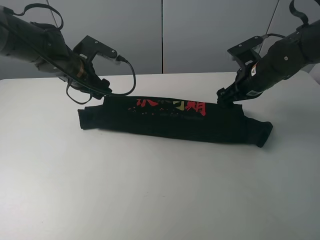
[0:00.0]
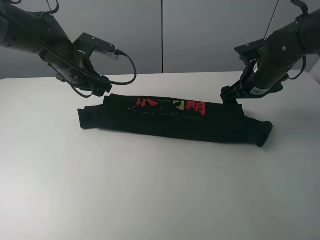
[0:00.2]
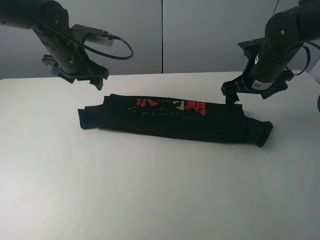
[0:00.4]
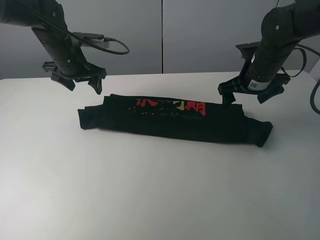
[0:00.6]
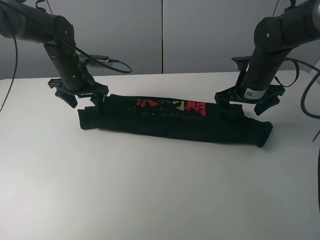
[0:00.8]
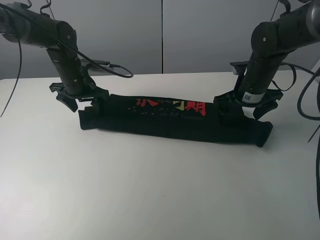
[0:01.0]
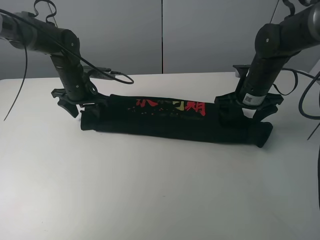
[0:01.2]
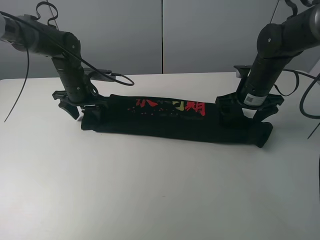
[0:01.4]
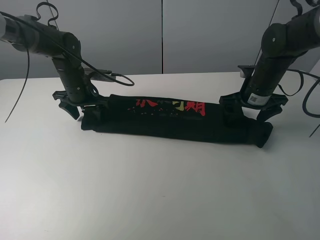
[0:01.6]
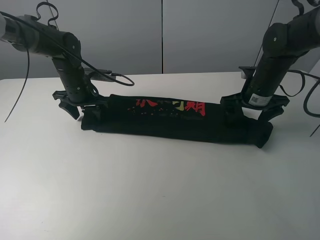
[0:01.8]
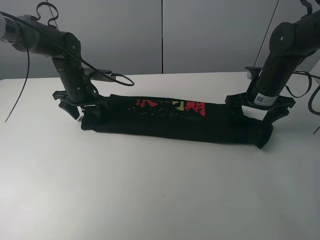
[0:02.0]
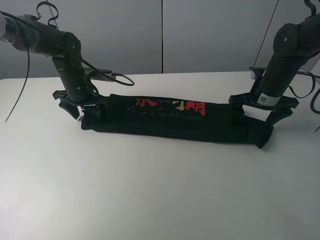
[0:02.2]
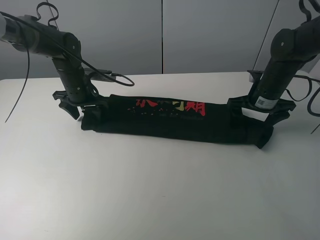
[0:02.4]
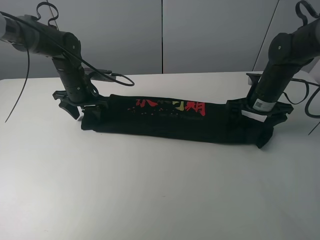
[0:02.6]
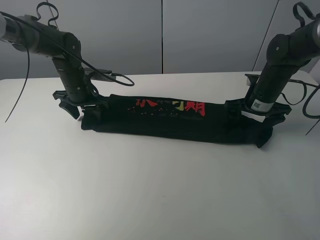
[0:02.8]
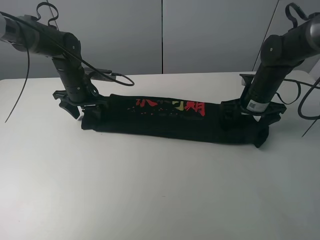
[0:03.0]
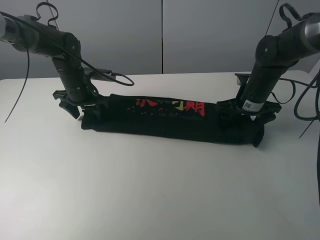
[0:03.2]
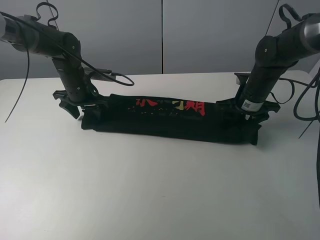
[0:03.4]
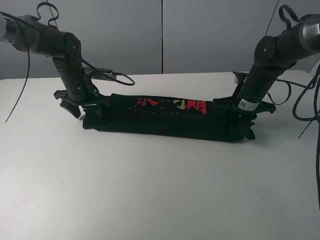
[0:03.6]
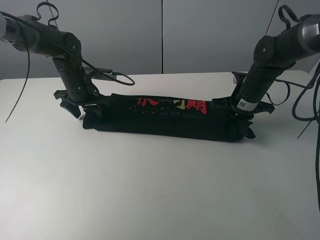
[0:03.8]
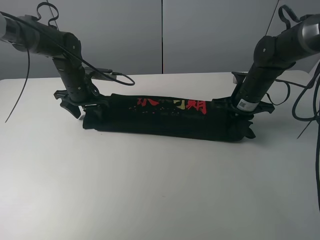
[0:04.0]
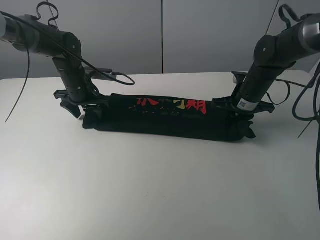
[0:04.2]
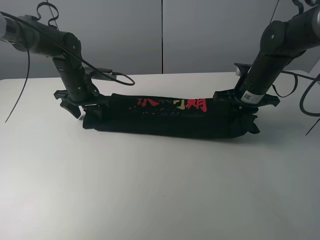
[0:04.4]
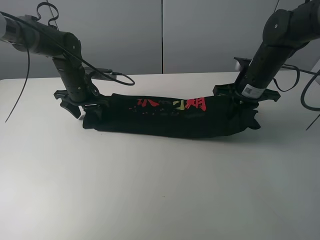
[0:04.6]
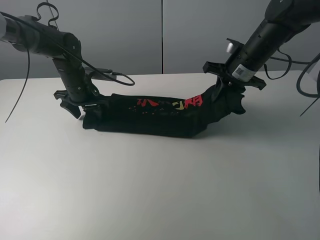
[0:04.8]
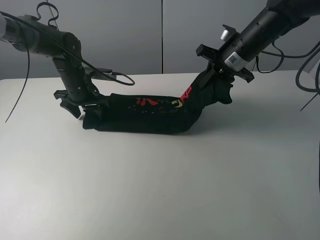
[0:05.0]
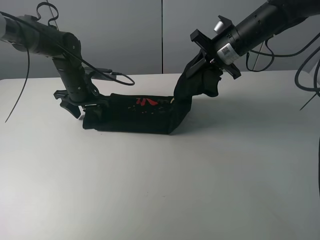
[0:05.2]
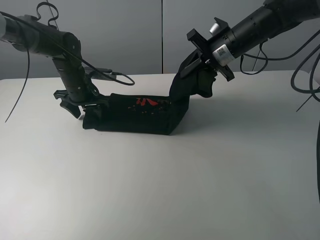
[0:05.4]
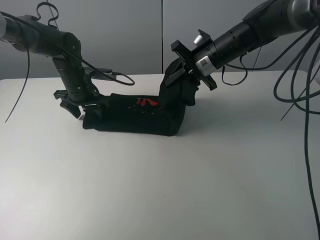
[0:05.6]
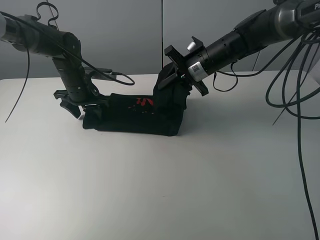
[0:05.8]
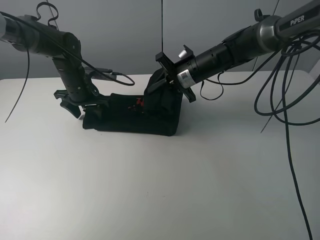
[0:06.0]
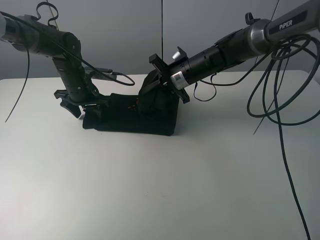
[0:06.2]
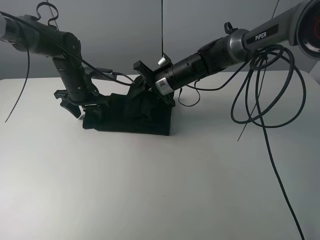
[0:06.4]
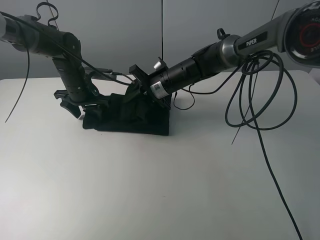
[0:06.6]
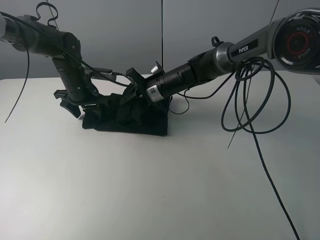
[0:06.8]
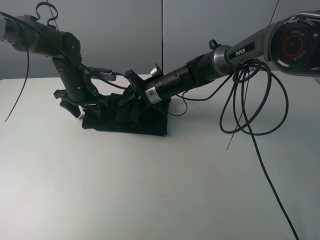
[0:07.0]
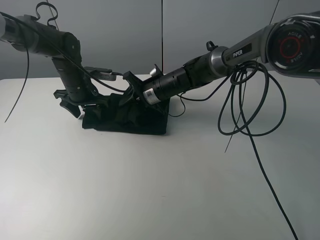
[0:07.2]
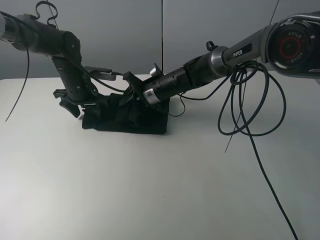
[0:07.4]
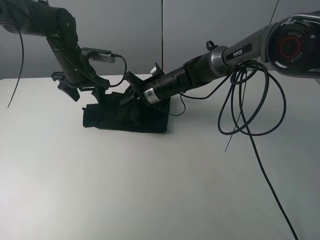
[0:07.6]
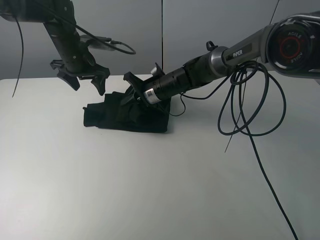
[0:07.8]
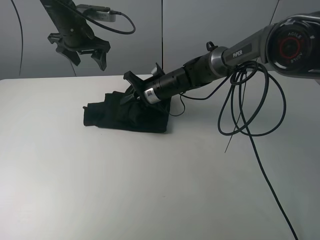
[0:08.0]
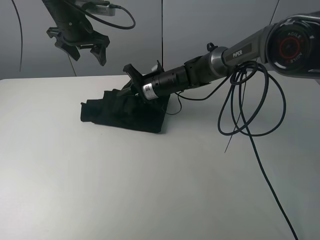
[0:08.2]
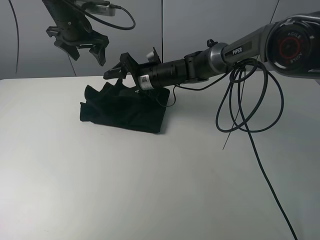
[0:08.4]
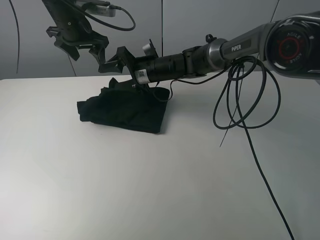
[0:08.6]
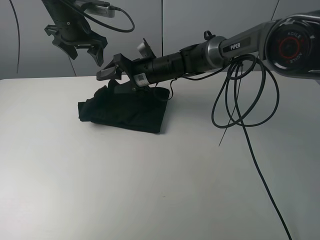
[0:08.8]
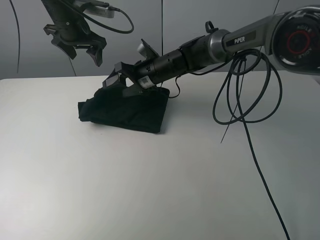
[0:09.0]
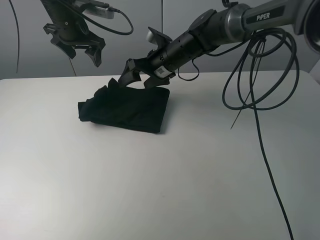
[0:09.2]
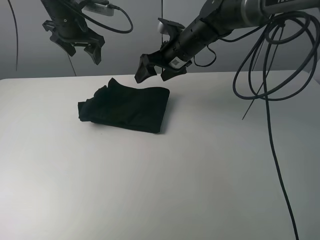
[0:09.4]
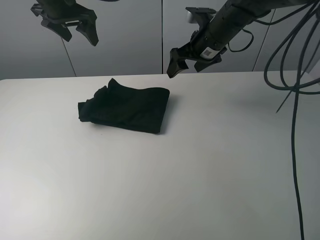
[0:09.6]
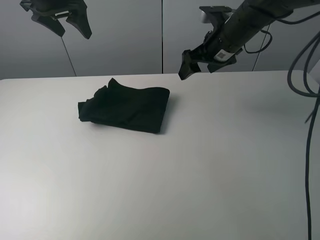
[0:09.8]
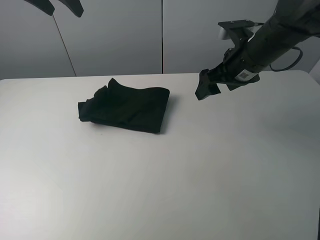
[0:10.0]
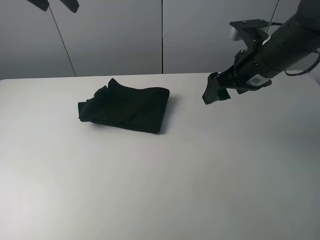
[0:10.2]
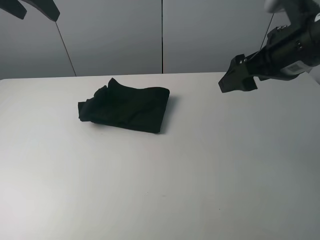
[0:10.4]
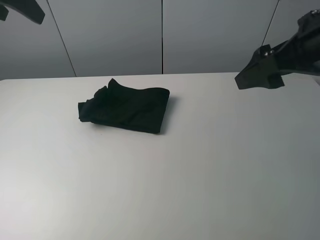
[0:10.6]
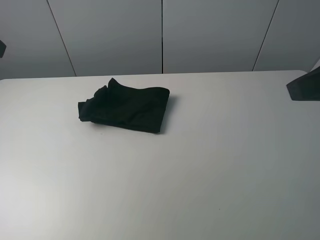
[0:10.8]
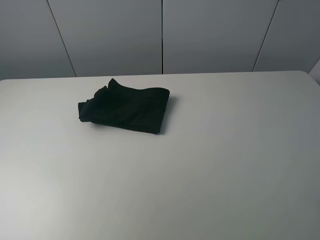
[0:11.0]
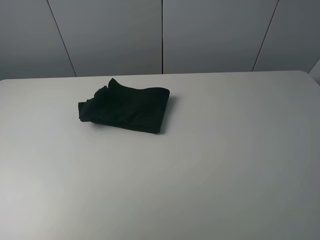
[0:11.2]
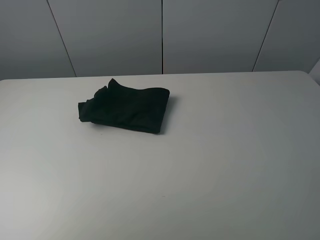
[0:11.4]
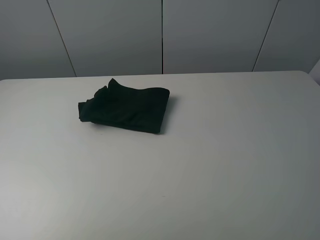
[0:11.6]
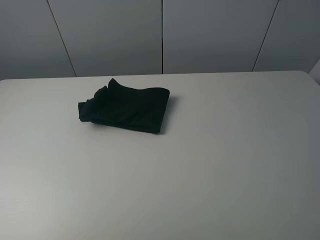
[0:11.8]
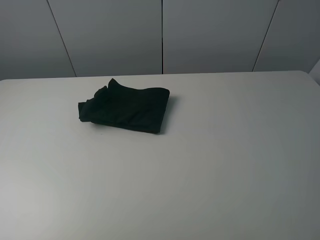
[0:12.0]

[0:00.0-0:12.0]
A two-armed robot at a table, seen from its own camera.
Task of the whole recording: fold the clothes on the table.
Step, 0:00.2 to 0:03.8: Grasp the black T-shirt with the right gripper.
Step, 0:04.0 to 0:08.8: Fold the black T-shirt from right to left with right gripper.
0:00.0 to 0:01.6: The left gripper is displaced downward by approximately 5 cm.
0:01.6 to 0:03.0: The grippers stay close to where they were, moving slightly.
0:03.0 to 0:04.4: The right gripper closes its fingers.
0:04.4 to 0:06.0: The right gripper travels to the left by about 15 cm.
0:06.0 to 0:07.6: The left gripper shifts about 5 cm upward; the right gripper travels to the left and downward by roughly 10 cm.
0:07.6 to 0:09.0: The right gripper changes place by approximately 5 cm, and opens. Meanwhile the left gripper is displaced upward by some 10 cm.
0:09.0 to 0:10.4: The right gripper shifts approximately 30 cm to the right, backward and upward. Meanwhile the left gripper is displaced upward, backward and to the left by about 20 cm.
0:10.4 to 0:12.0: The left gripper shifts roughly 35 cm backward; the right gripper shifts about 20 cm backward.

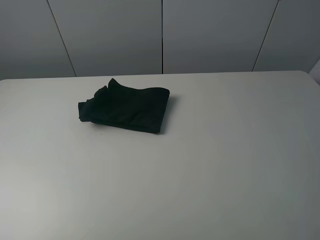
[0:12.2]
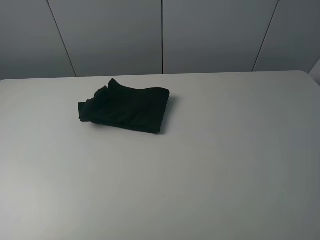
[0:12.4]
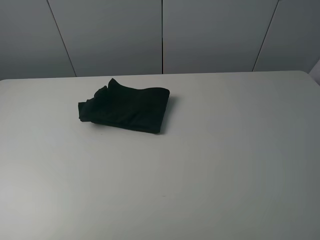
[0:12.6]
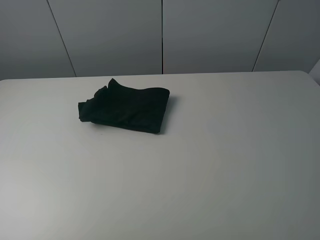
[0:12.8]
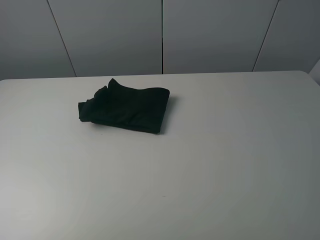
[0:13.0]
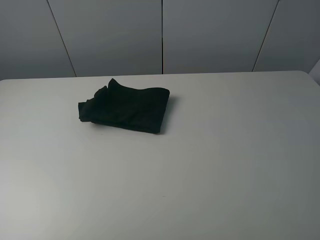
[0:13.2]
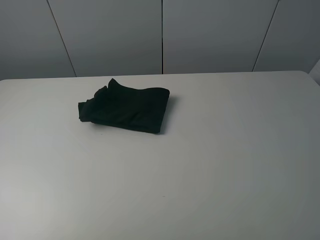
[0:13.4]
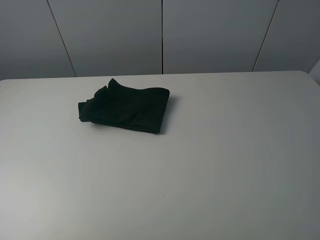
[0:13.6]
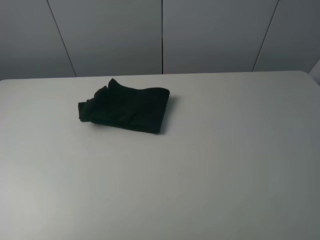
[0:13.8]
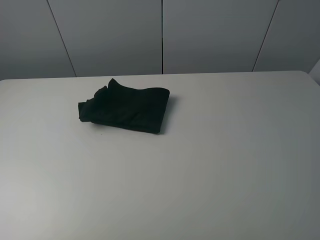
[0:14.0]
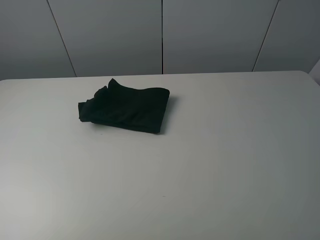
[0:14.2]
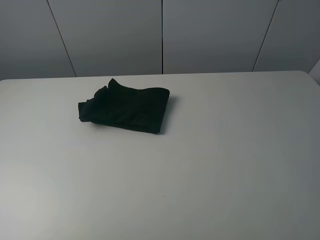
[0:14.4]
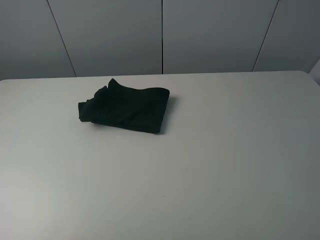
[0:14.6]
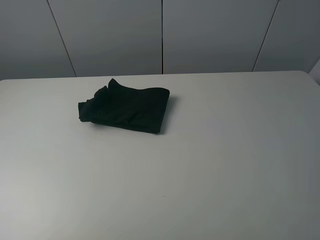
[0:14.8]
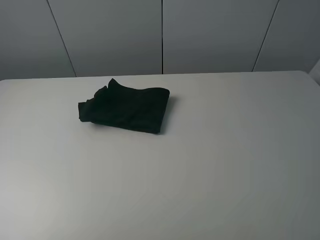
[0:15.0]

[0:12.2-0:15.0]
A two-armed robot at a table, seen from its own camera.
Task of the whole recording: fold the clothes on the table.
0:13.6 to 0:15.0: Both grippers stay put.

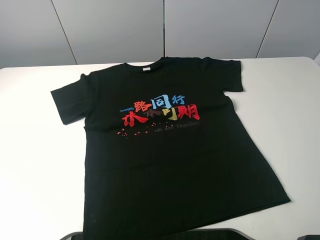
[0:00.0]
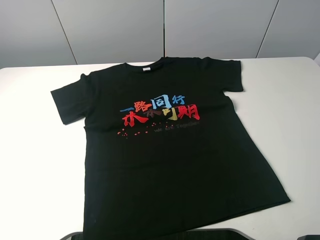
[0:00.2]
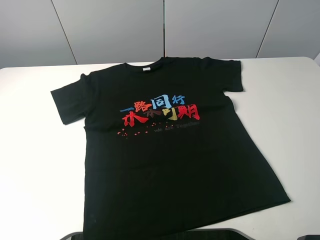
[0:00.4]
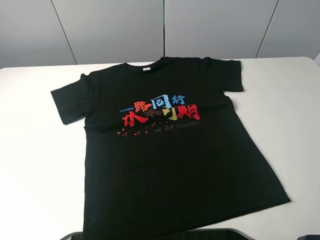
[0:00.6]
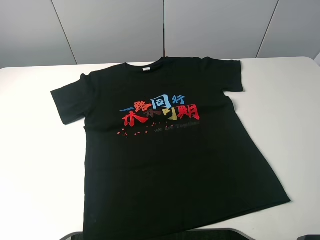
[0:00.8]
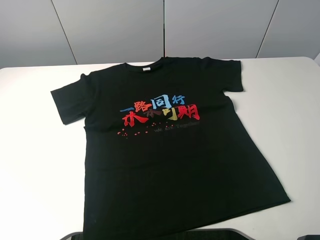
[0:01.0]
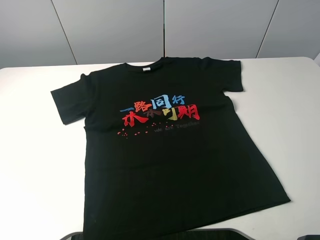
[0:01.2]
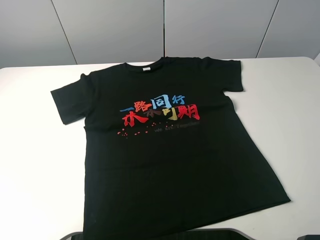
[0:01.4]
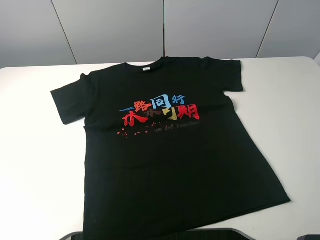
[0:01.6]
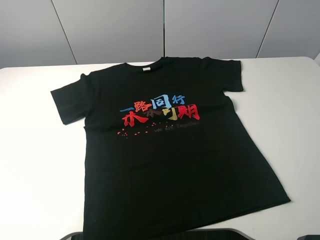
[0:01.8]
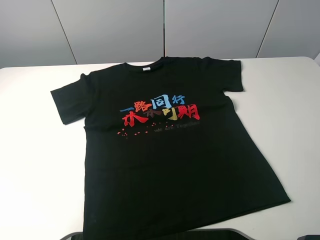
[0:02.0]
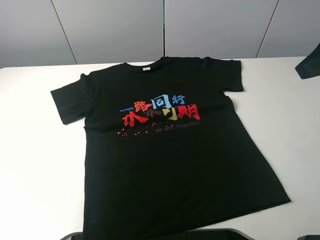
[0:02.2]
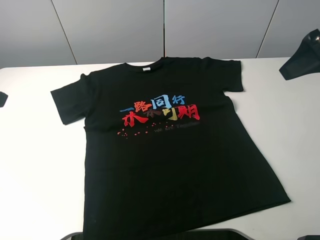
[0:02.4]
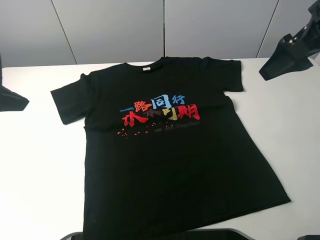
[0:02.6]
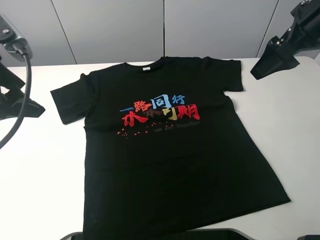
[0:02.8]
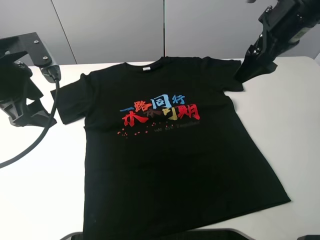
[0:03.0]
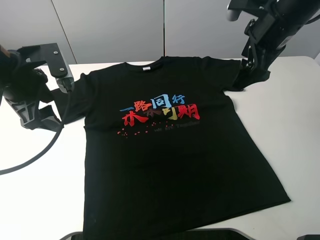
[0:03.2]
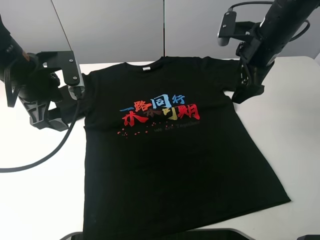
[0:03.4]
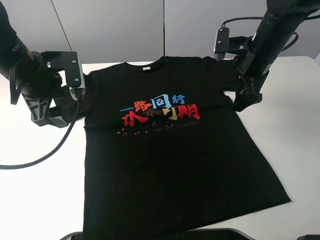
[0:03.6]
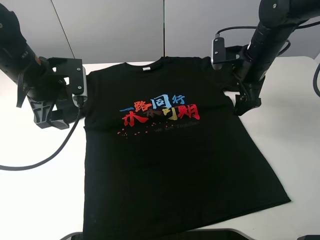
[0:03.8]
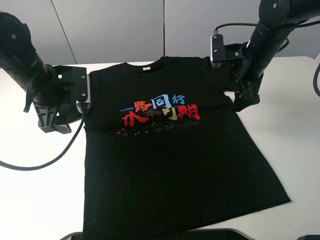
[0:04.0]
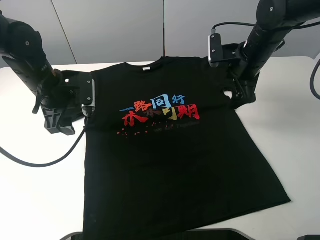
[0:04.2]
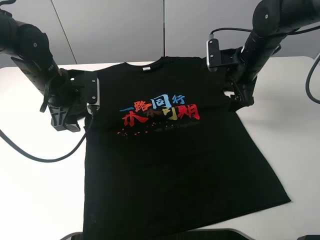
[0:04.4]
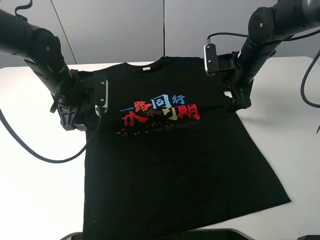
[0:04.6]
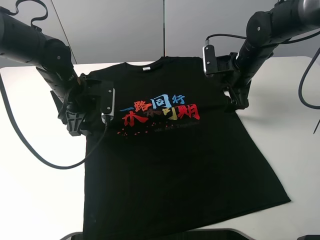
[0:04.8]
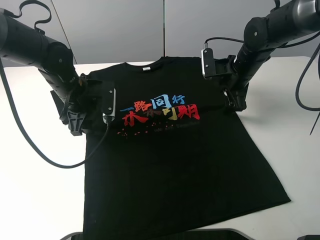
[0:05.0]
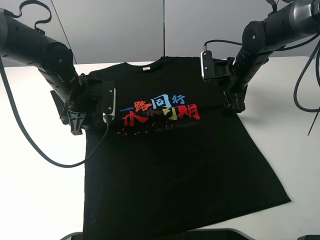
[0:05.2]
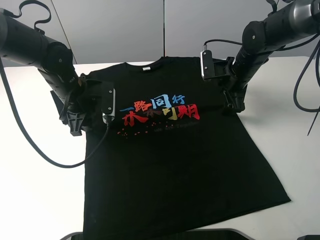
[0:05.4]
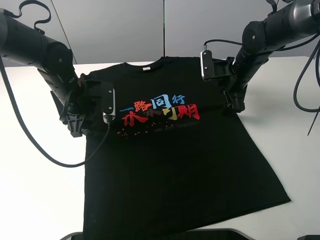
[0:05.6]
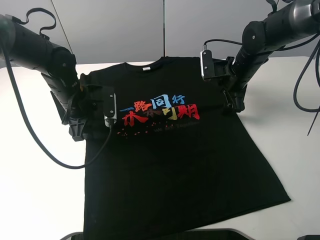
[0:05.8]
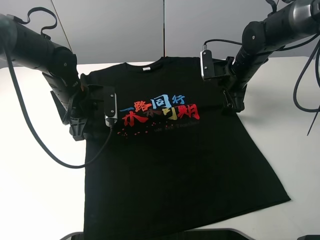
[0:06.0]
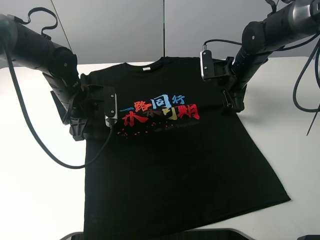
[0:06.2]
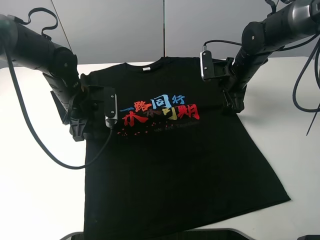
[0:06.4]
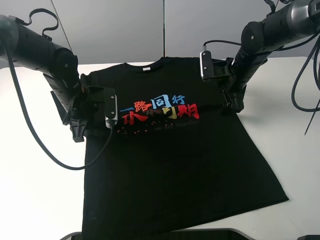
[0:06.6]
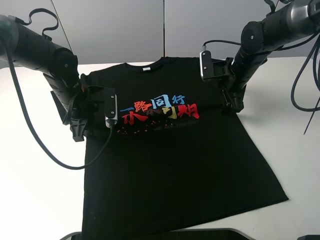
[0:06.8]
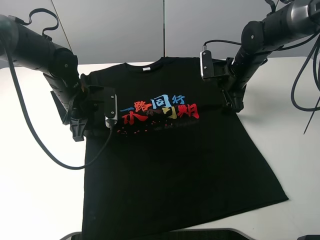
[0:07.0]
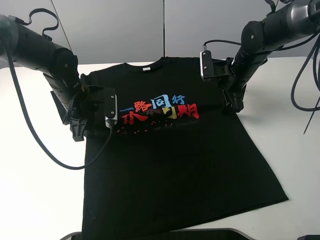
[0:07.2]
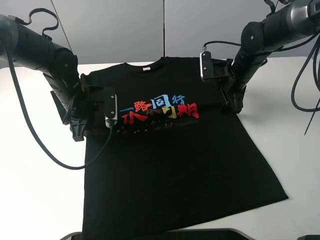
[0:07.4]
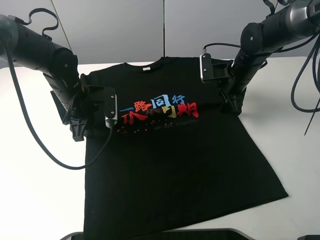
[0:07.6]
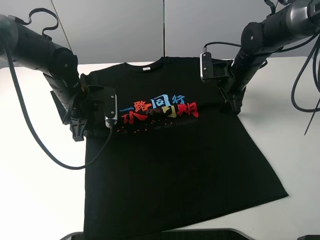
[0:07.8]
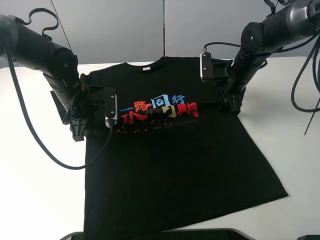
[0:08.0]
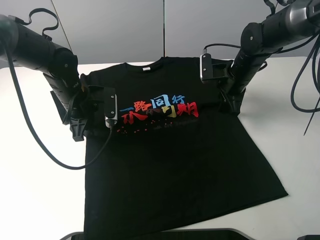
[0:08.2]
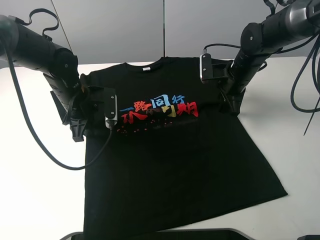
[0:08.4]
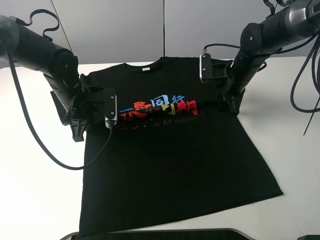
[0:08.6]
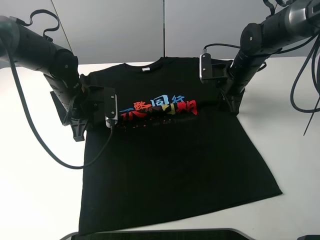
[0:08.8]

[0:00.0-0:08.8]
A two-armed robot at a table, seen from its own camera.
Task of the whole recording: fold the clothes on the table.
Step, 0:00.0 to 0:07.8: Lift the black T-shirt with the left gripper.
0:01.4 to 0:03.0: Both grippers travel together forward, roughly 25 cm.
0:03.0 to 0:04.4: Both grippers move downward and forward, approximately 15 cm.
0:04.4 to 0:05.8: The left gripper changes place by some 5 cm.
0:05.8 to 0:07.4: Both grippers stay put.
0:07.4 to 0:08.8: The left gripper closes up.
